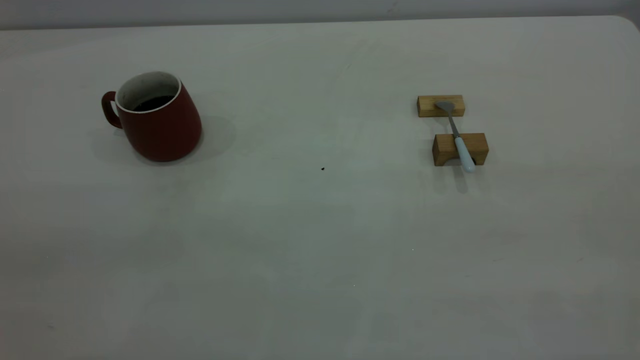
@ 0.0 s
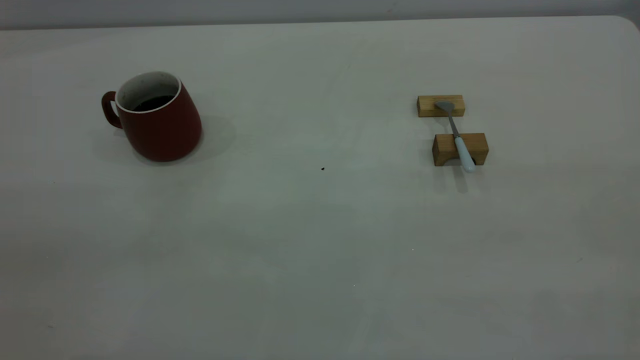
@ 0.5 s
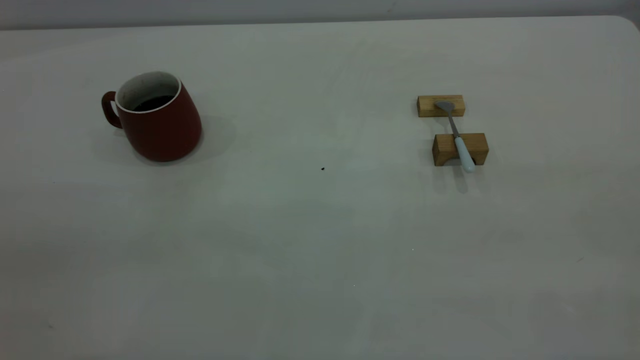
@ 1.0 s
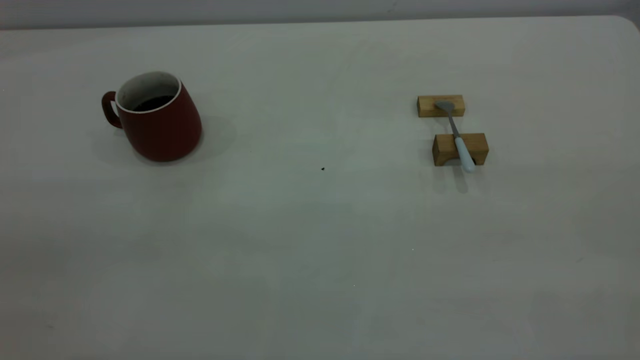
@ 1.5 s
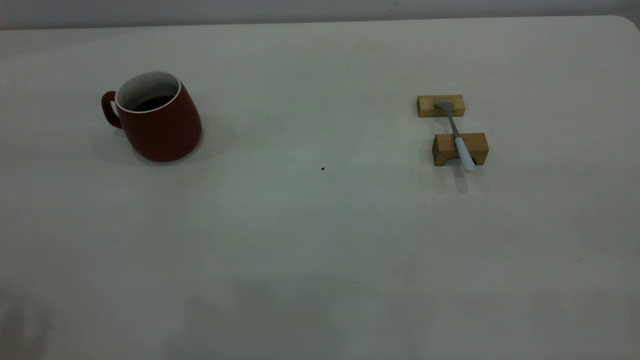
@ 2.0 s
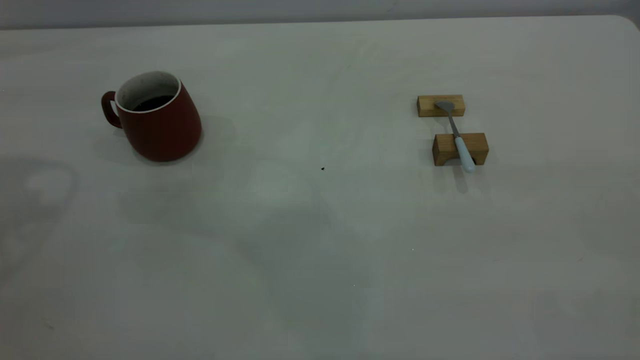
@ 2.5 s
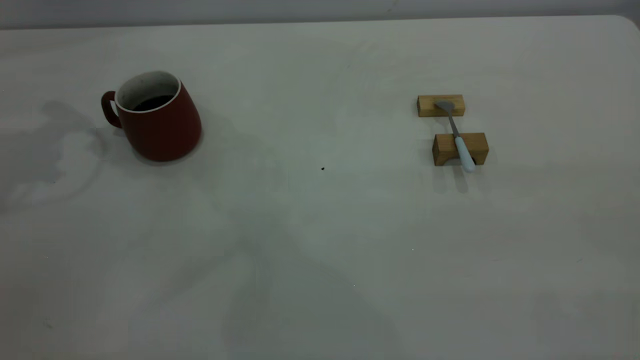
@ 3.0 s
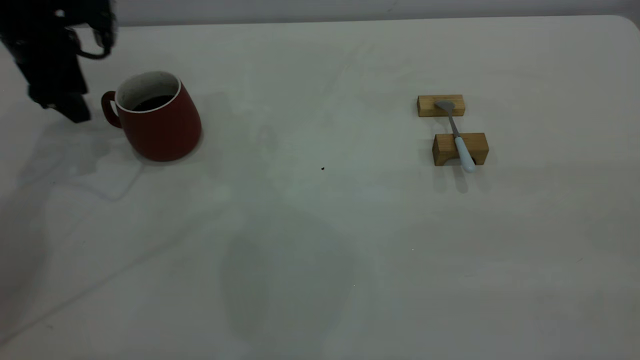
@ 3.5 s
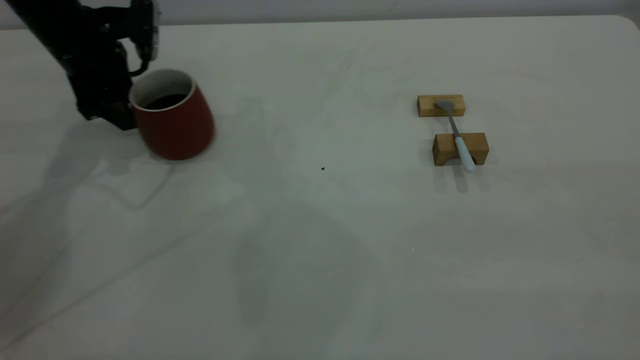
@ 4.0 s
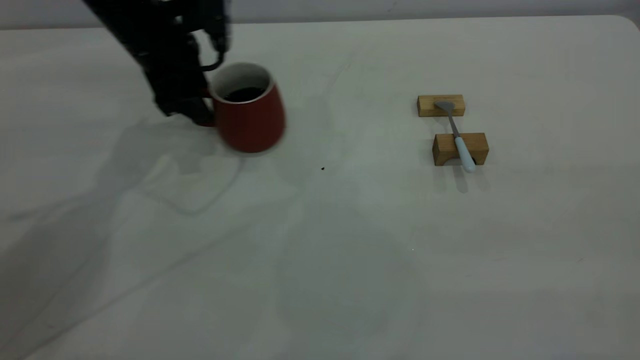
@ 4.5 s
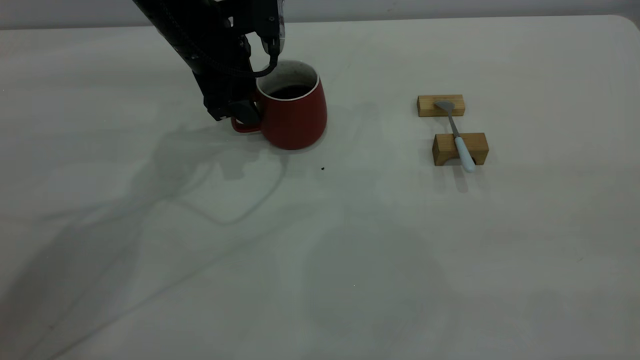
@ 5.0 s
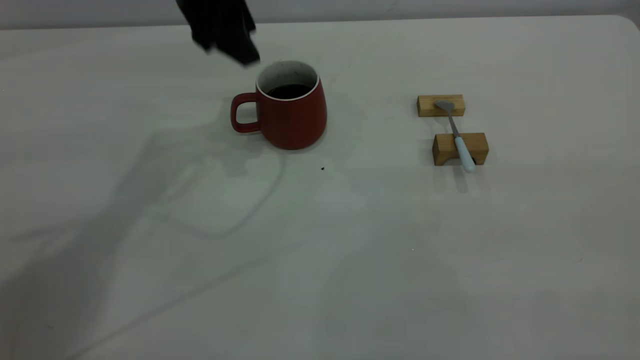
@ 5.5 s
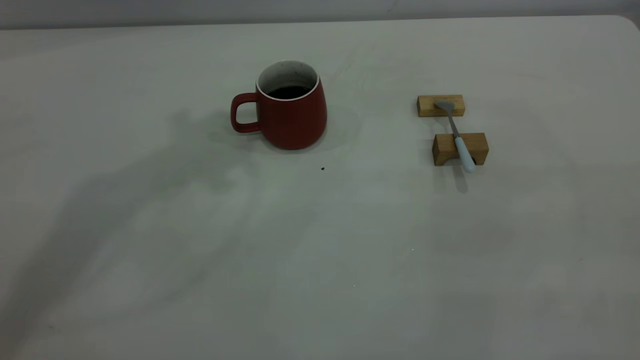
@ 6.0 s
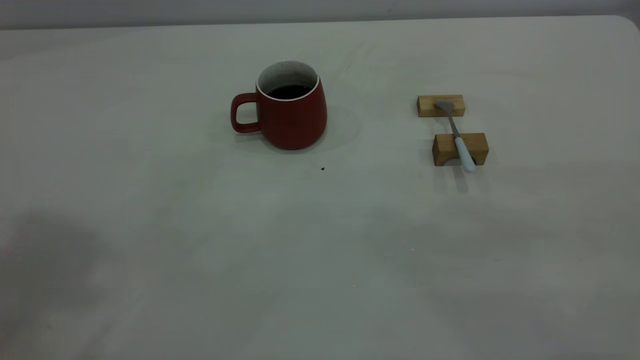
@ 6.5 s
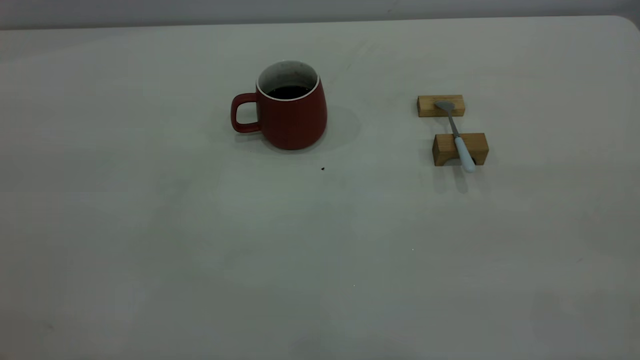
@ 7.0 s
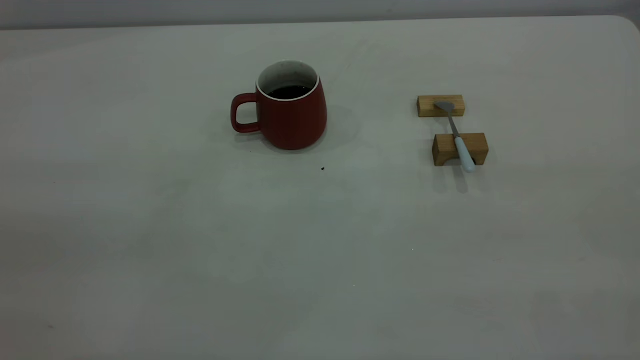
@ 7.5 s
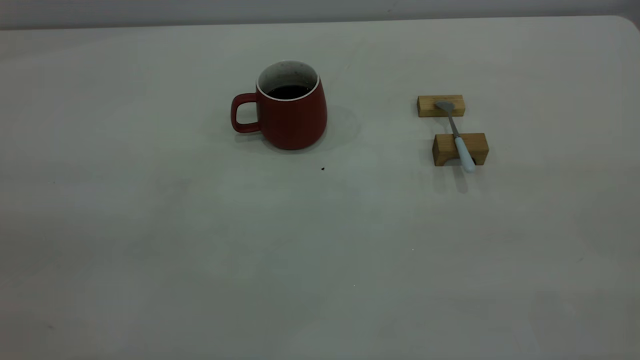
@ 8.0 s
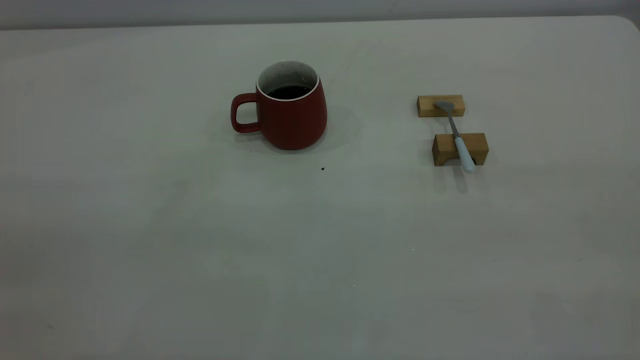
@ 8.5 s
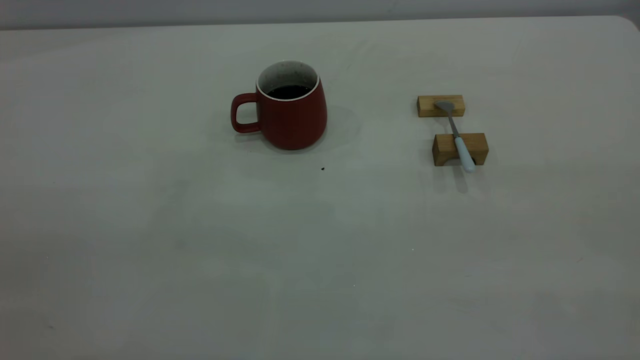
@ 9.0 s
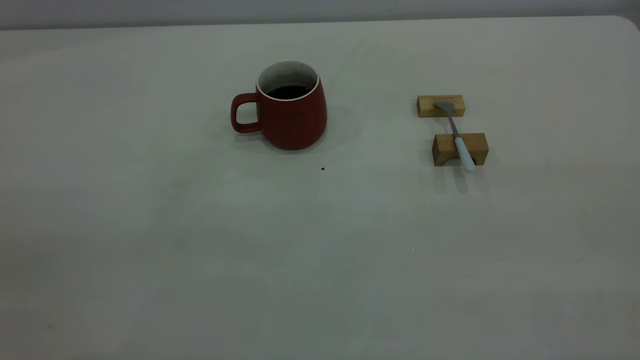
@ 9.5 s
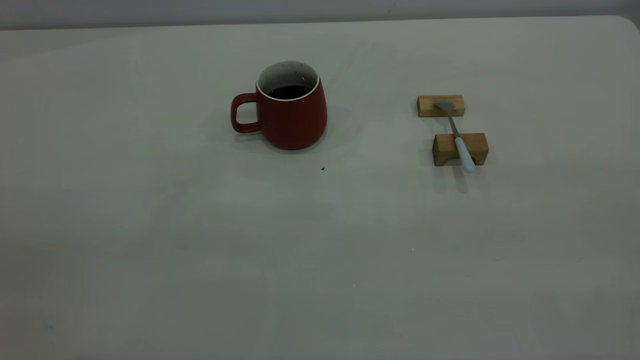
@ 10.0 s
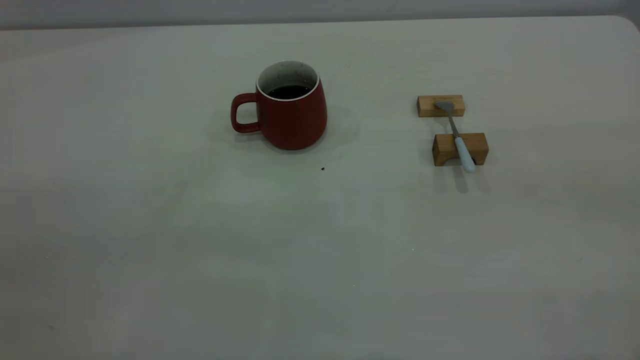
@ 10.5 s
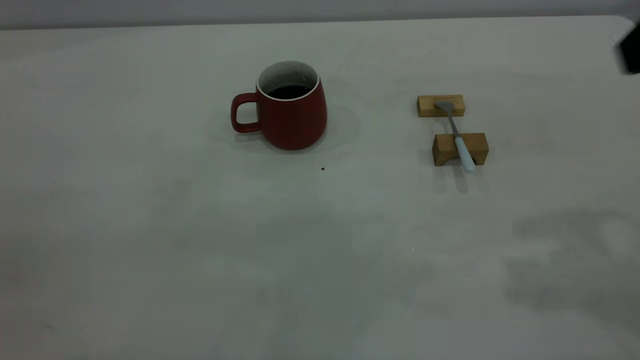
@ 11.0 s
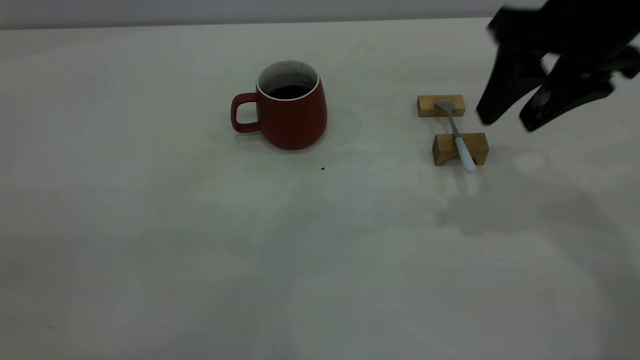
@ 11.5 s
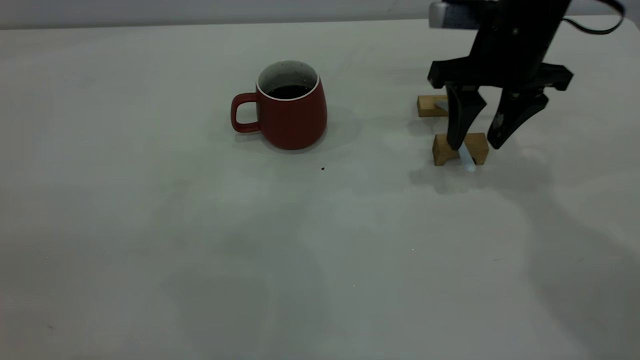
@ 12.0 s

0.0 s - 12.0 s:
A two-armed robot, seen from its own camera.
Step, 0.0 s - 5.0 s: Move the cup with coffee to the center of view.
2.0 s - 4.0 s: The left gripper moves forward and downward, about 40 cm.
4.0 s - 6.0 s: The left gripper shifts roughly 35 cm upward.
10.0 s - 12.0 s: The right gripper is displaced forward and downward by approximately 50 cm, and opens.

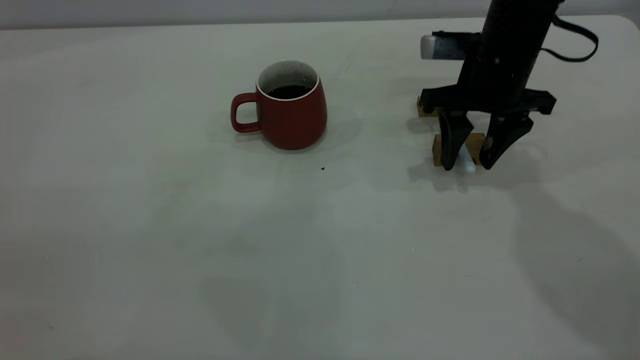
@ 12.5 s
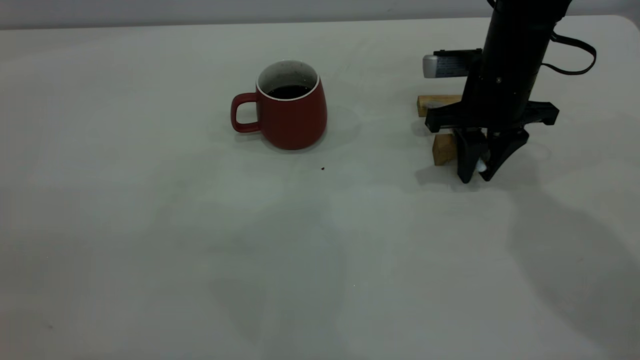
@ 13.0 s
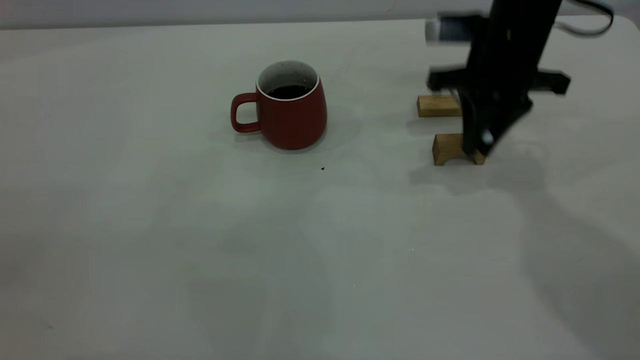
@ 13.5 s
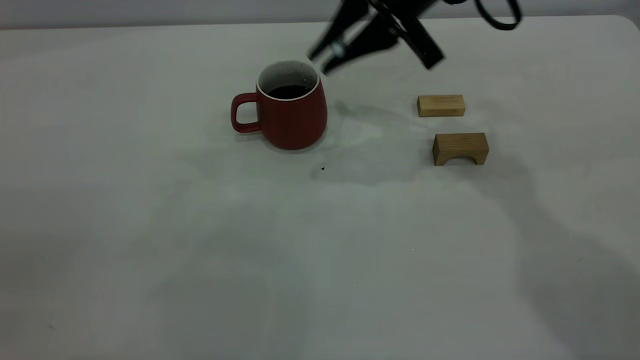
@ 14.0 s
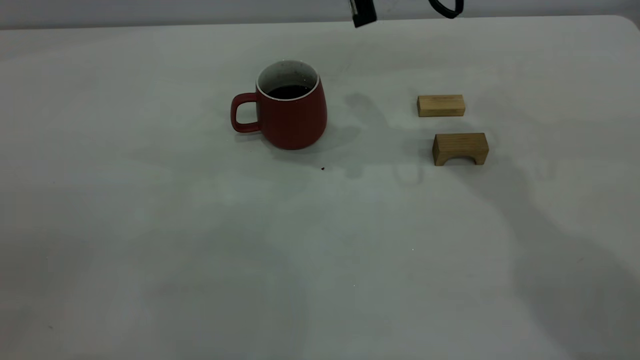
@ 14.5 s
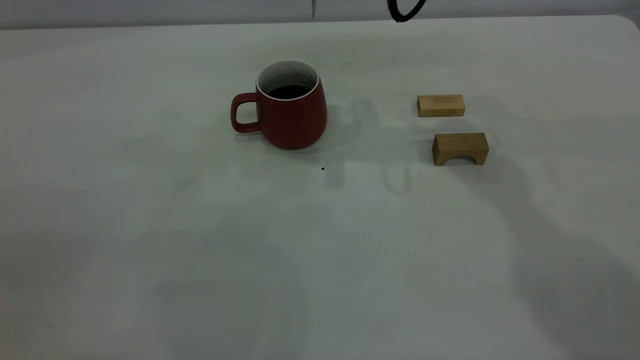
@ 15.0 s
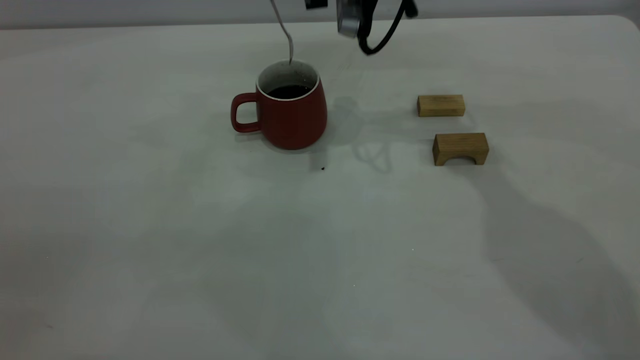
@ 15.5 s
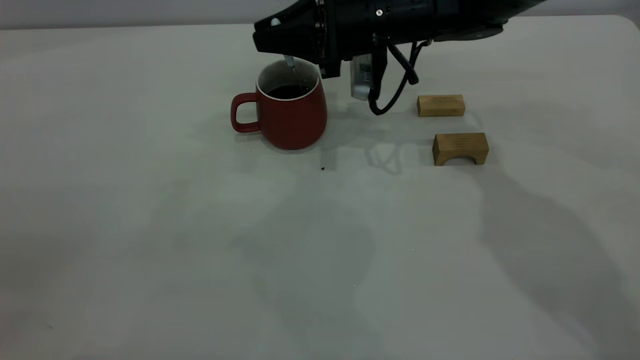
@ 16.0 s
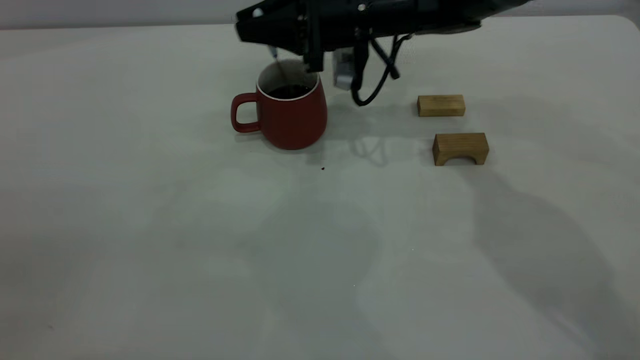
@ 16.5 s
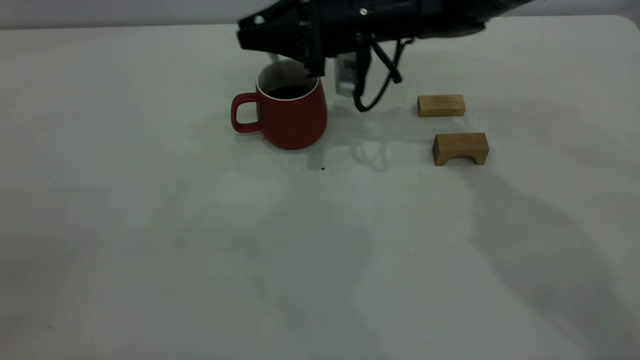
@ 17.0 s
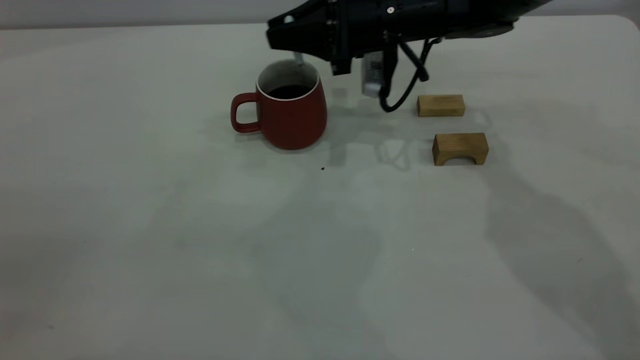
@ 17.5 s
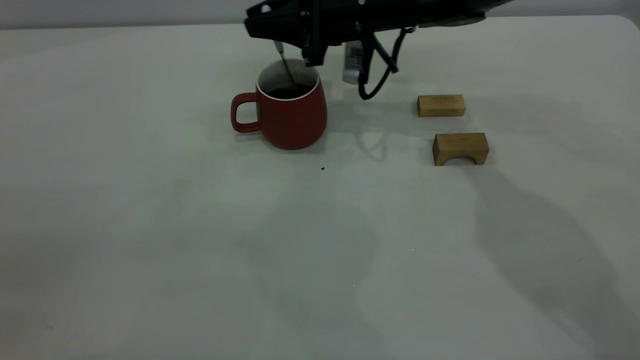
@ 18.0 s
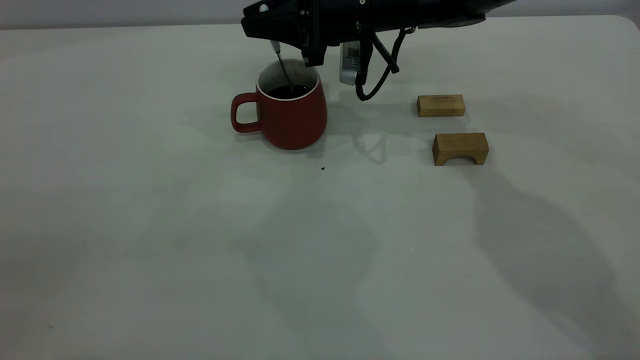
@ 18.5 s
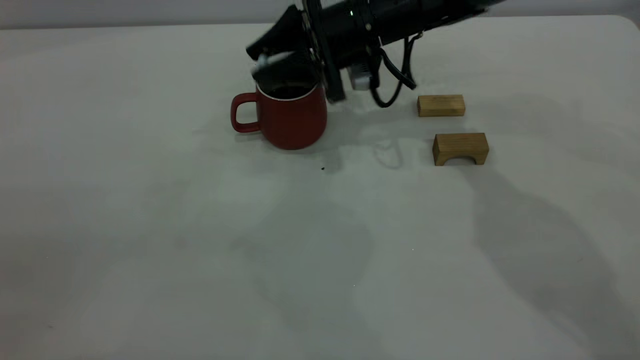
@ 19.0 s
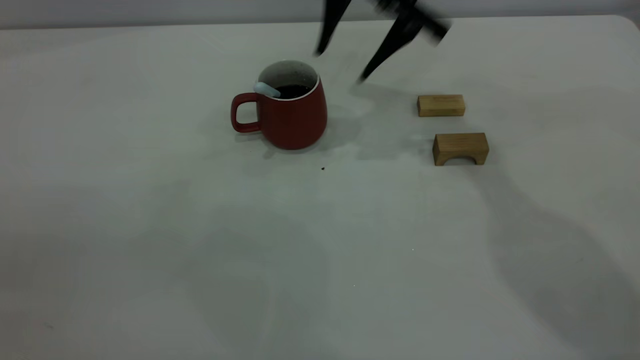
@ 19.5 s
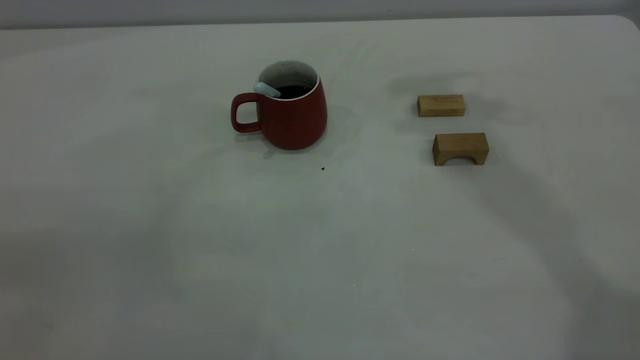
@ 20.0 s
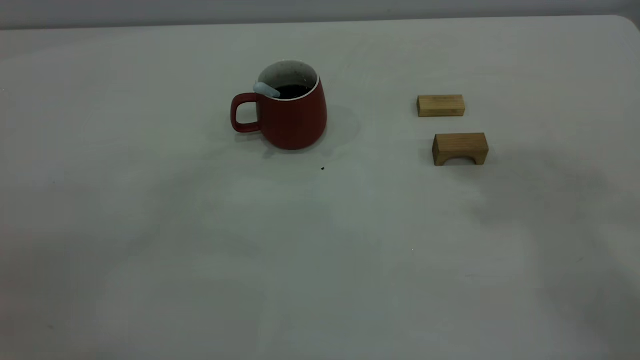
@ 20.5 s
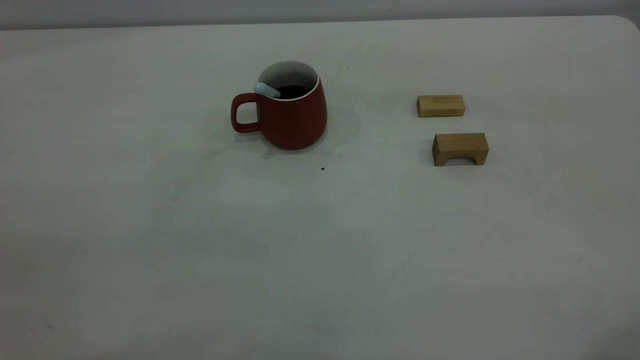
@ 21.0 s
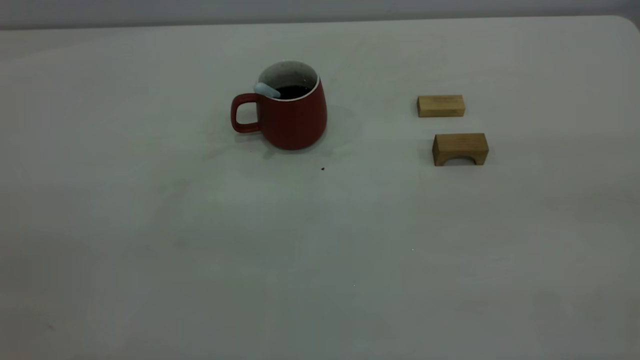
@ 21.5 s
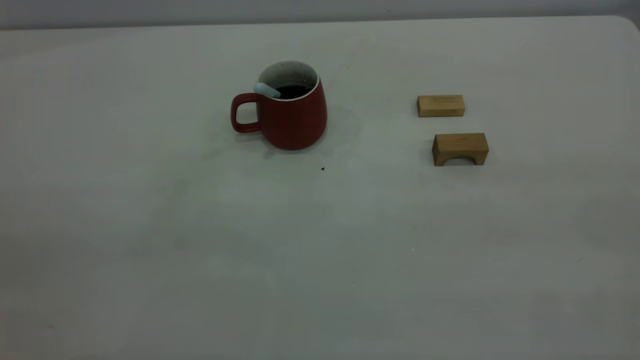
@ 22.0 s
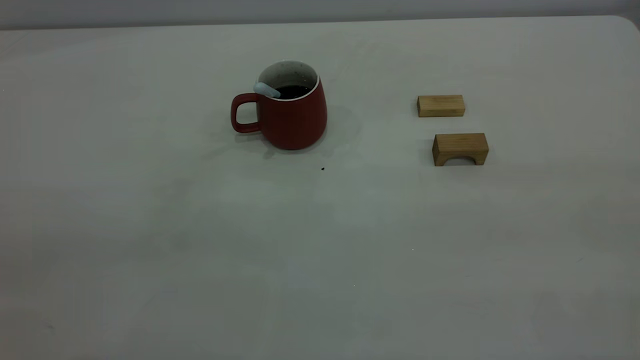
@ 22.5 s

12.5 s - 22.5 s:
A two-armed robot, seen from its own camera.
Step, 14.0 s - 19.0 s: Stir the coffee in the cup.
12.5 s - 14.5 s: The right gripper travels upward and to the left by roughly 15 cm, and closes its fingers.
14.5 s - 16.5 s: The right gripper moves downward and forward, some 15 cm.
16.5 s - 18.5 s: There are only small adjustments of the grippers.
18.5 s - 20.5 s: The right gripper shifts some 50 cm upward, backward and to the right, and opens its fingers.
